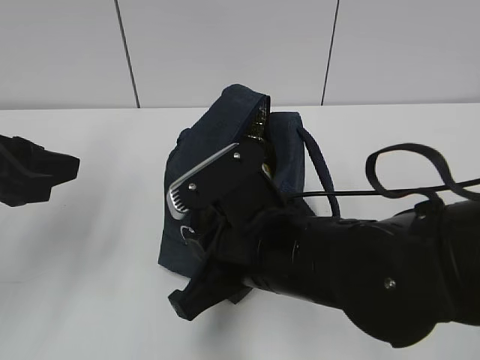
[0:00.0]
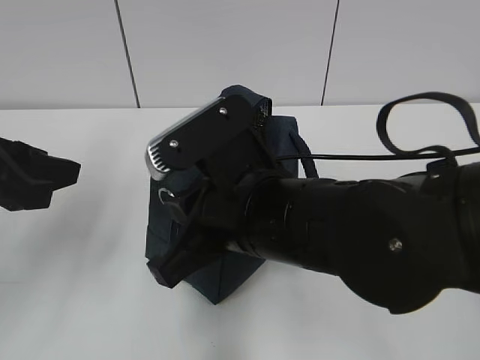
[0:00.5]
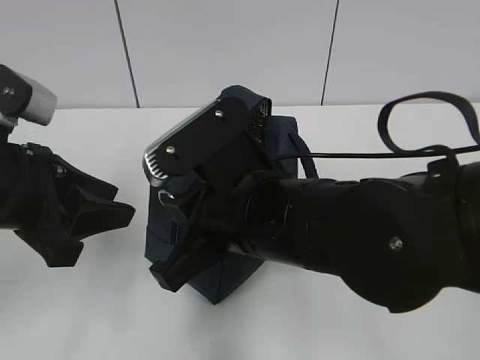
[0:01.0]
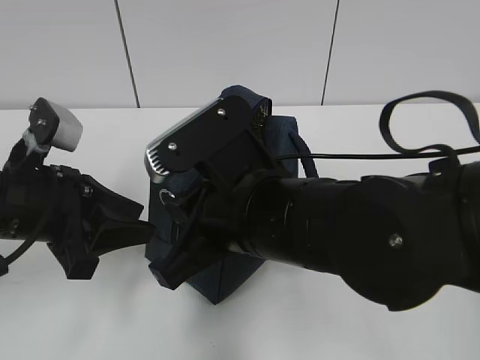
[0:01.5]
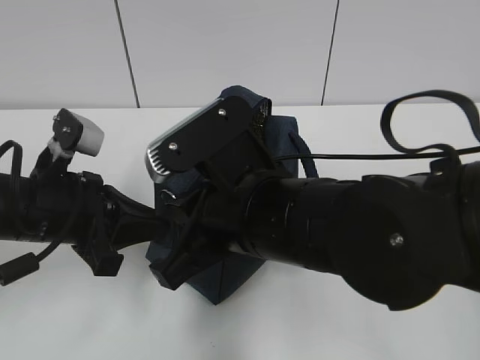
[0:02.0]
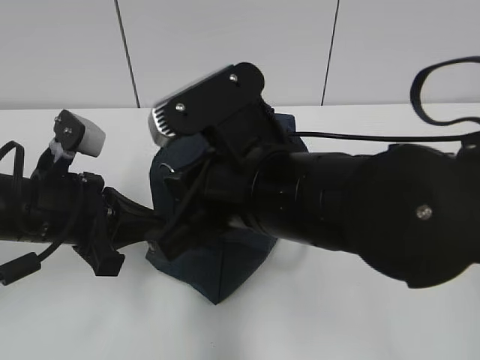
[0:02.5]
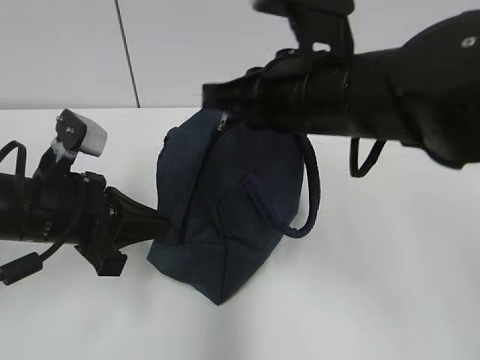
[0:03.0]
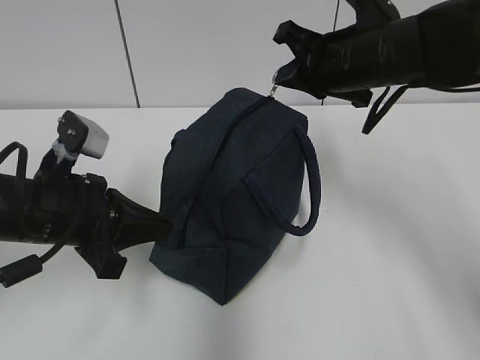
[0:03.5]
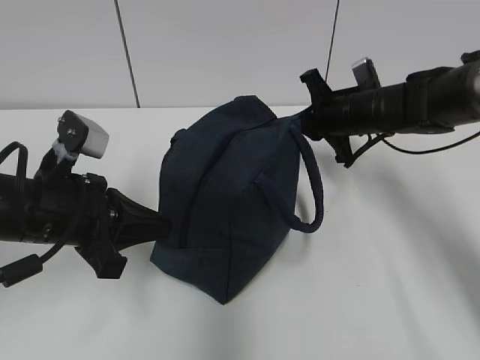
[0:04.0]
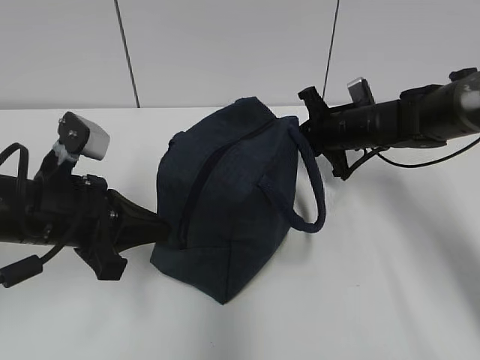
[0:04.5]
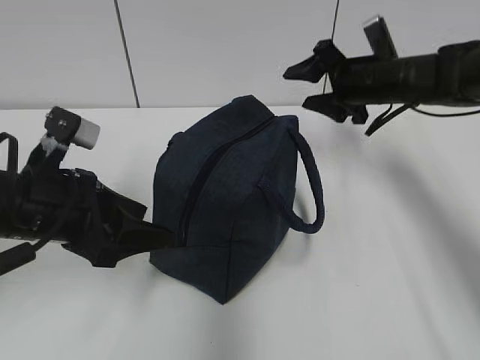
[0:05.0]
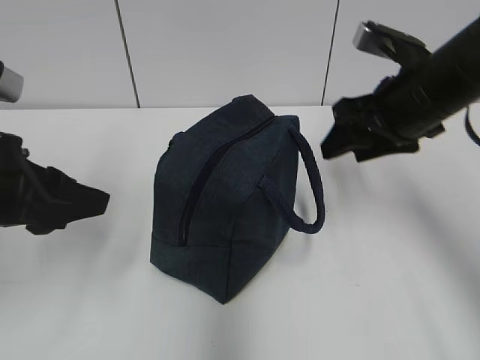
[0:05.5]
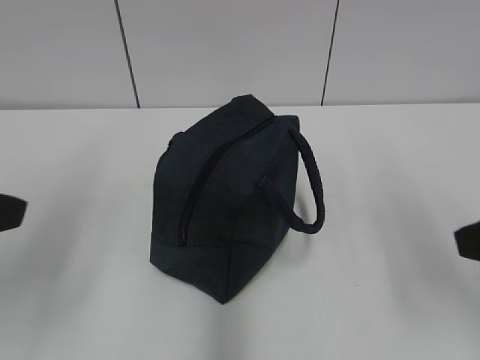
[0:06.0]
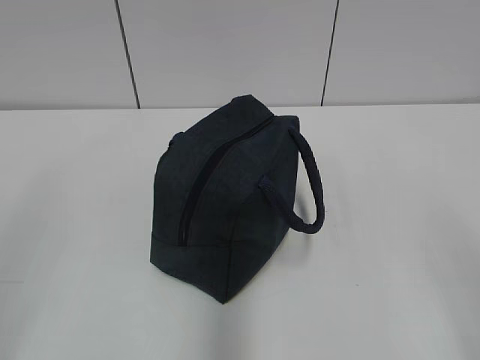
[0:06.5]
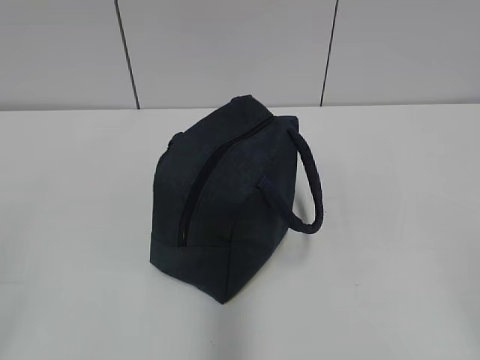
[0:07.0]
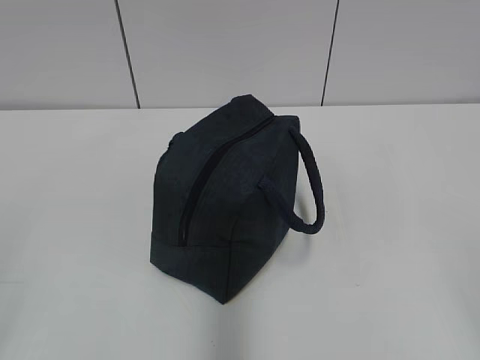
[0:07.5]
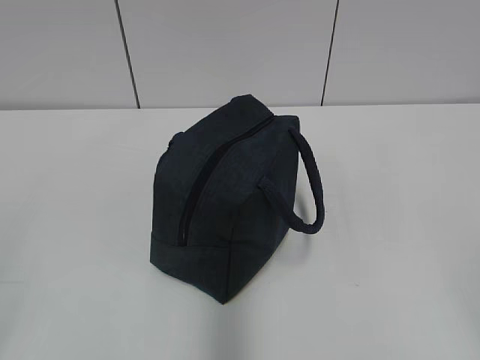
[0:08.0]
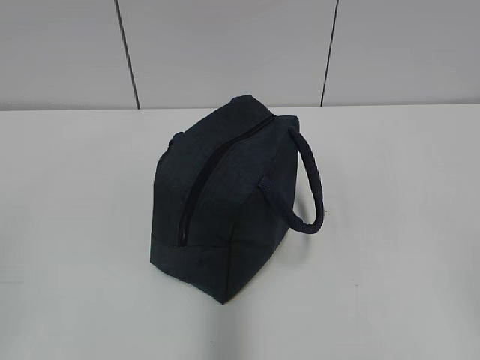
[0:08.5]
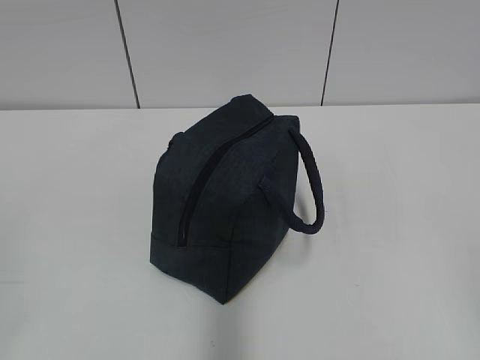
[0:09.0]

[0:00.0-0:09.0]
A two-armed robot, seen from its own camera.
0:00.0 to 0:02.0: The left gripper heads downward, covering about 10 cm, and closes.
0:02.0 to 0:04.5: The right gripper moves forward and to the right, some 30 cm.
0:04.5 to 0:07.0: The right gripper heads backward, covering some 50 cm, and opens its fingers. Meanwhile the left gripper shifts approximately 30 cm backward, to the left and upward, and opens its fingers.
